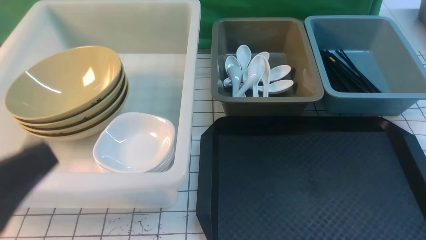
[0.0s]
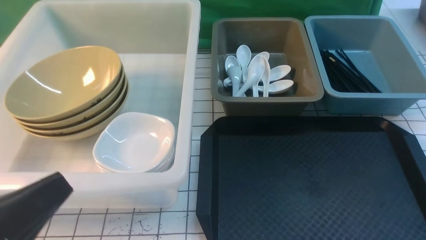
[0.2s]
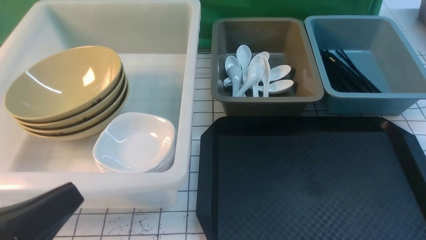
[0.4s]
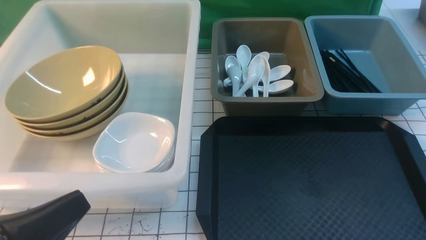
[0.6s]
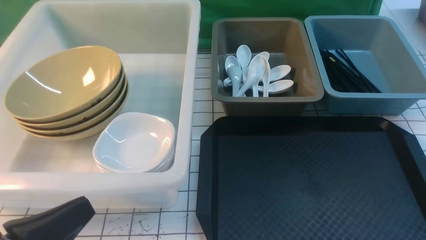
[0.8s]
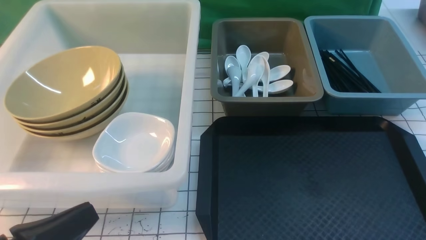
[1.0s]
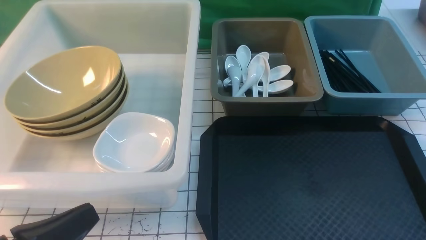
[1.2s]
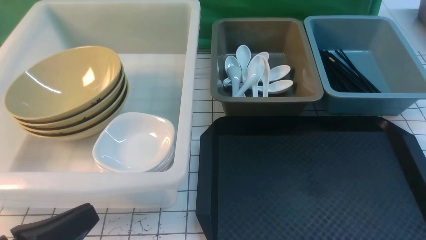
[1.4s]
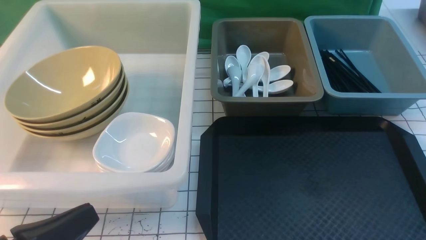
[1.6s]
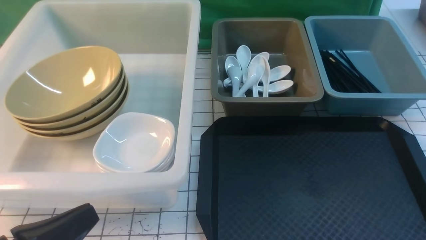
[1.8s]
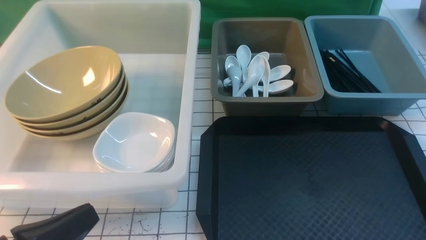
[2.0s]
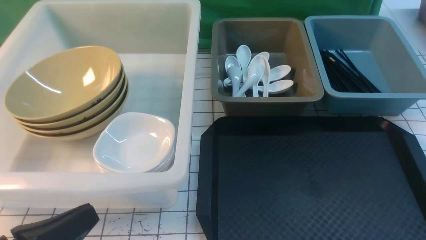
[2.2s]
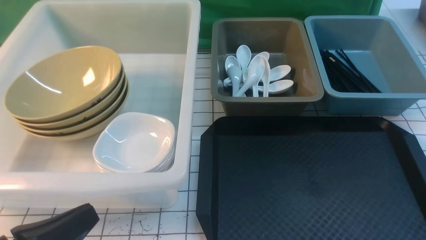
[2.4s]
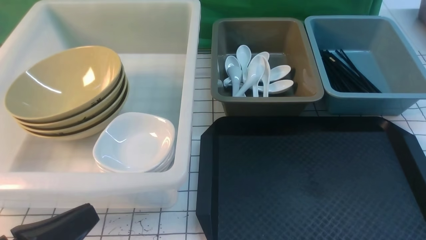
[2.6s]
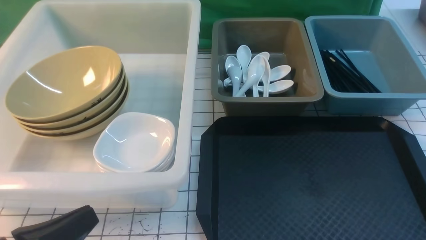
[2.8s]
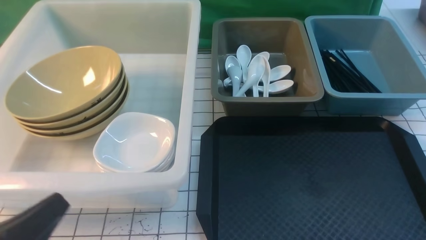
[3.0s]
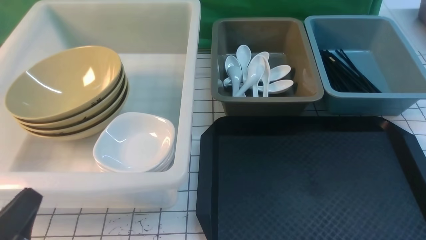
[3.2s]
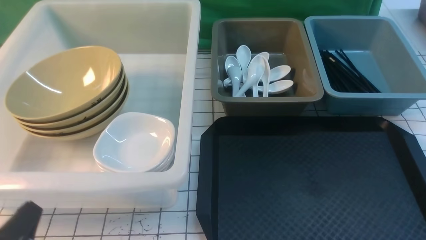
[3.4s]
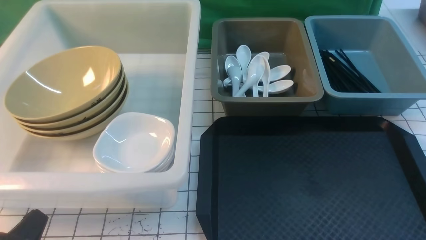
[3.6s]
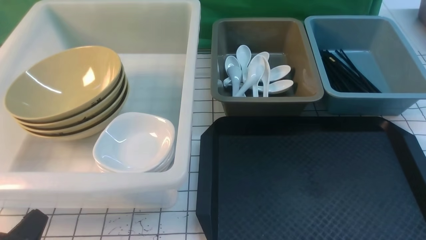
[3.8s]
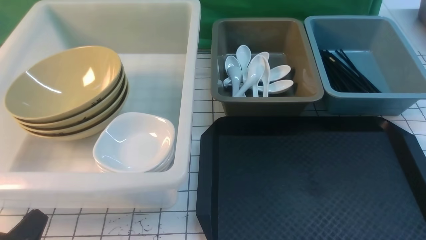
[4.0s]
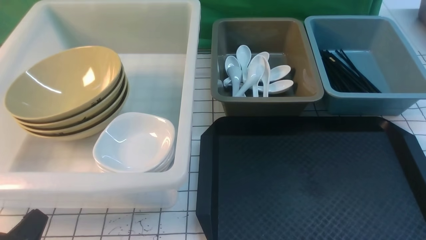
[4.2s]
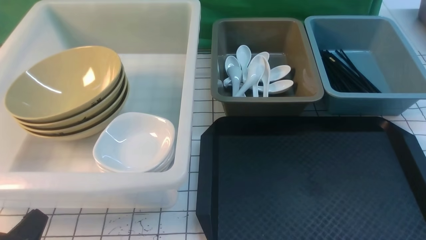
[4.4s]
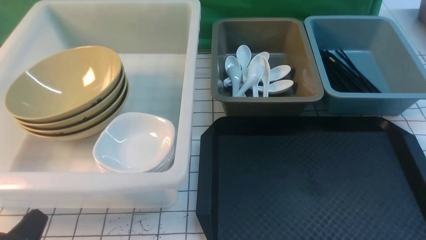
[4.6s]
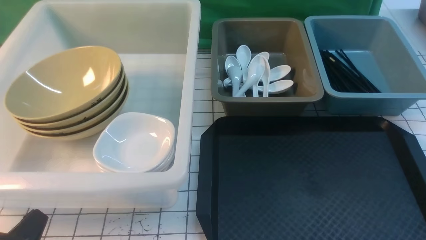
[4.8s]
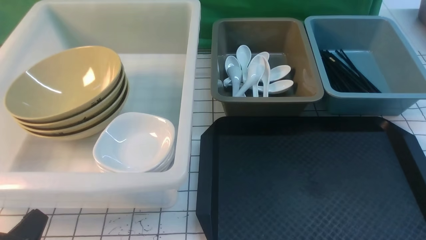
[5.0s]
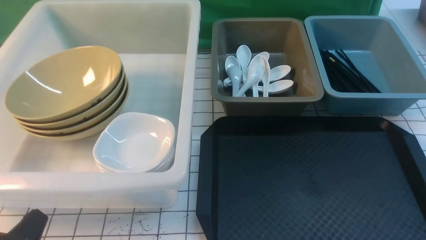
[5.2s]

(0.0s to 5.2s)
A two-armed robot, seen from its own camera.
Task of the whole recording: on white black table put chopsticks spoon bowls plates into blue grey white boxes.
0.0s - 1.8s: The left gripper goes about 10 cm downward.
1.8s - 3.4s: The left gripper changes place by some 5 cm.
3.4s - 5.2s: Neither gripper changes place.
